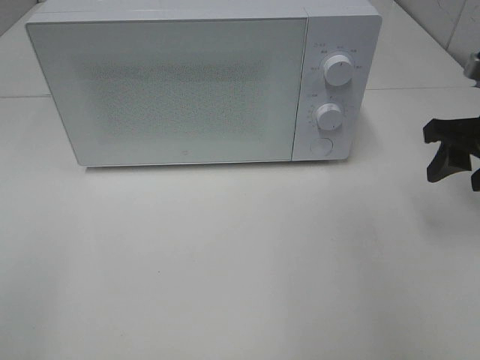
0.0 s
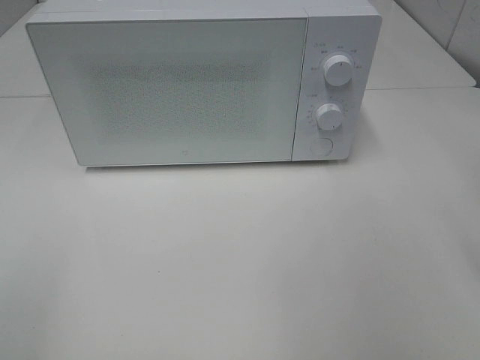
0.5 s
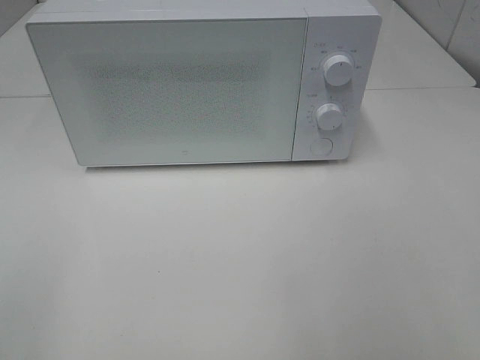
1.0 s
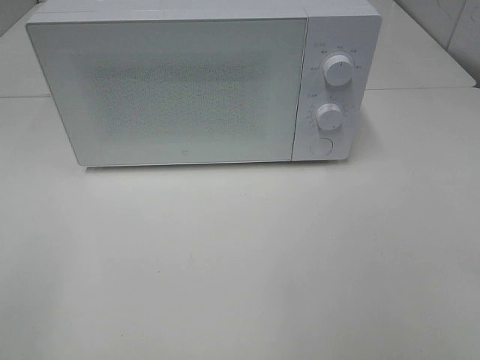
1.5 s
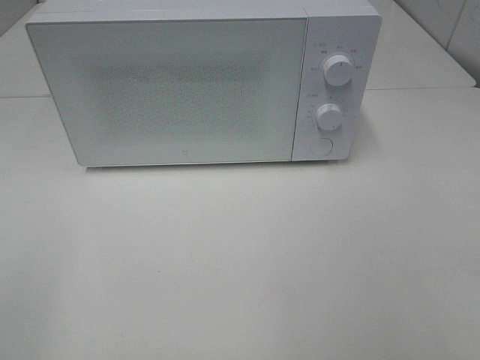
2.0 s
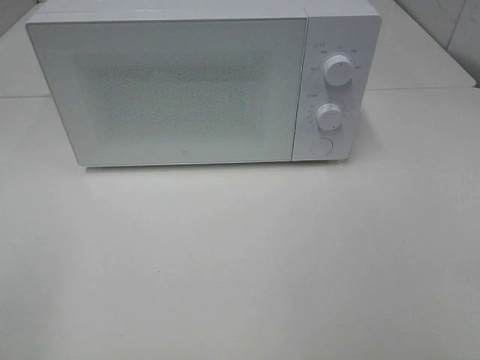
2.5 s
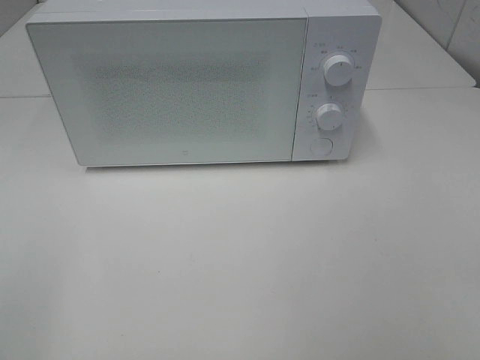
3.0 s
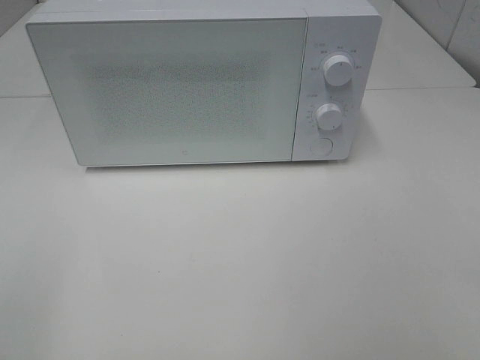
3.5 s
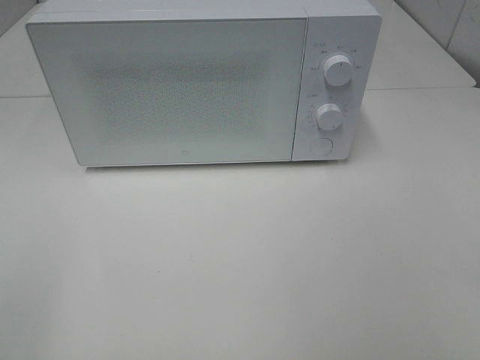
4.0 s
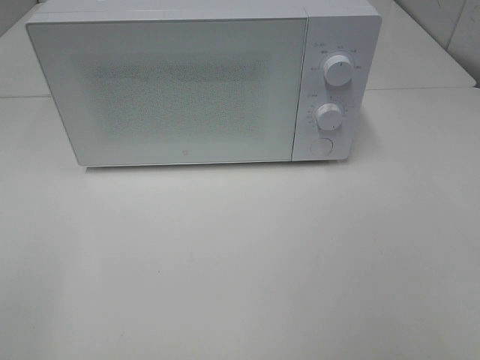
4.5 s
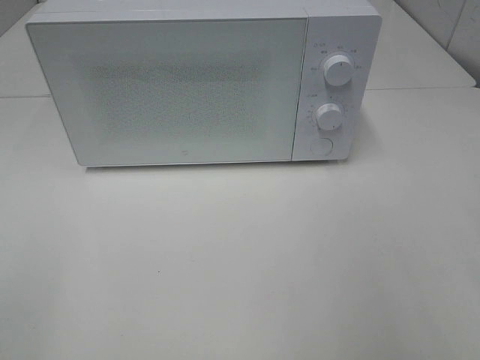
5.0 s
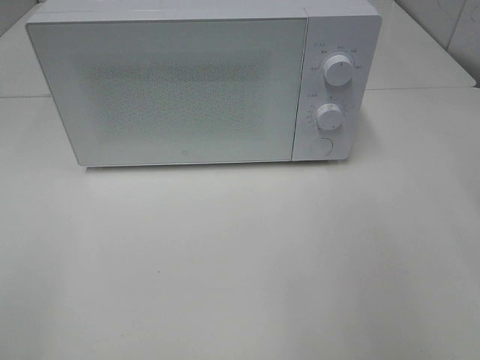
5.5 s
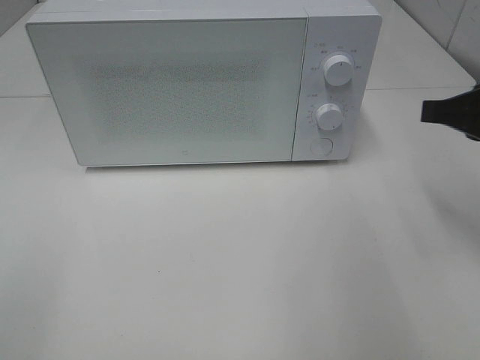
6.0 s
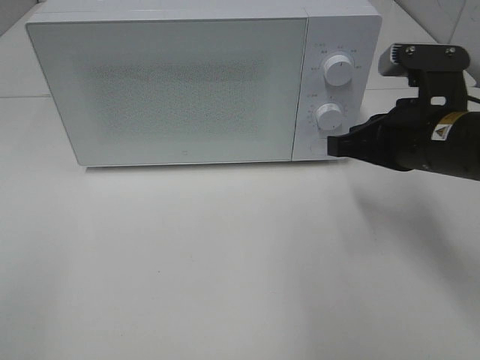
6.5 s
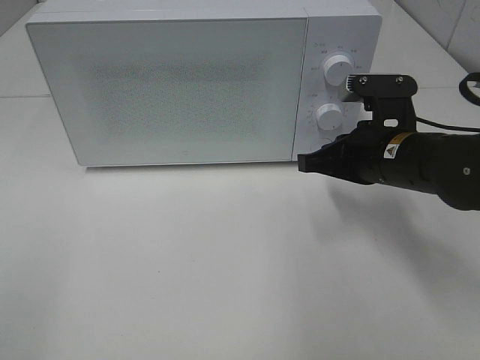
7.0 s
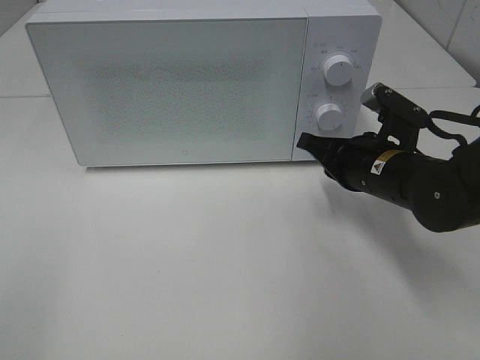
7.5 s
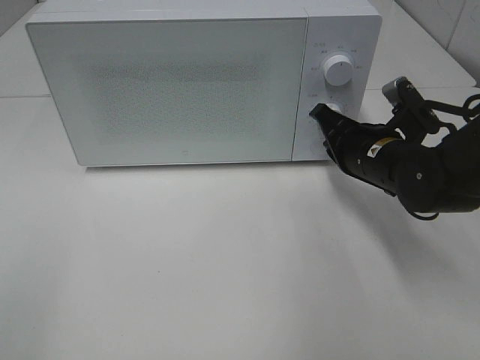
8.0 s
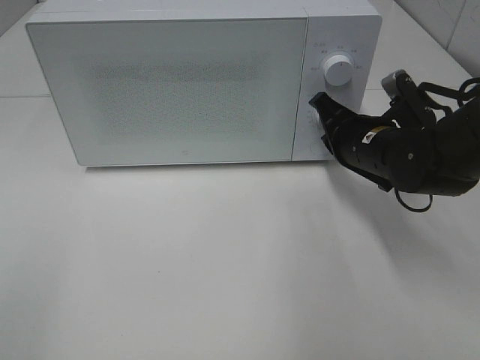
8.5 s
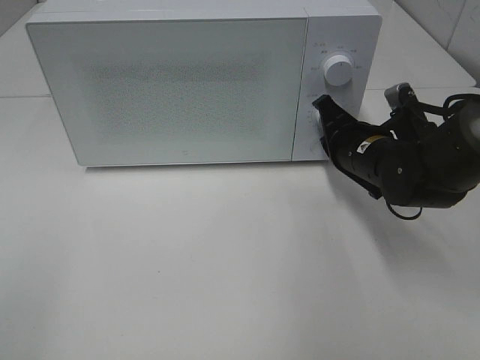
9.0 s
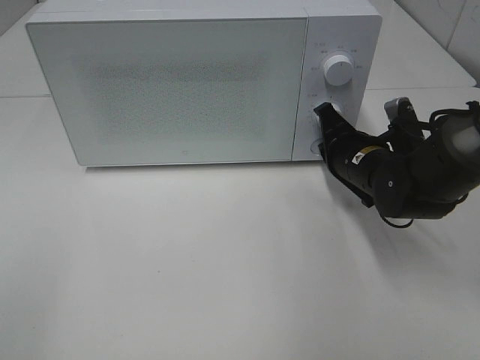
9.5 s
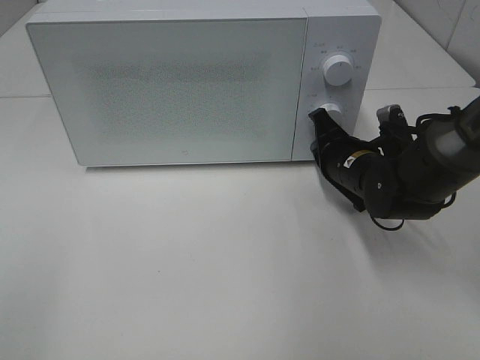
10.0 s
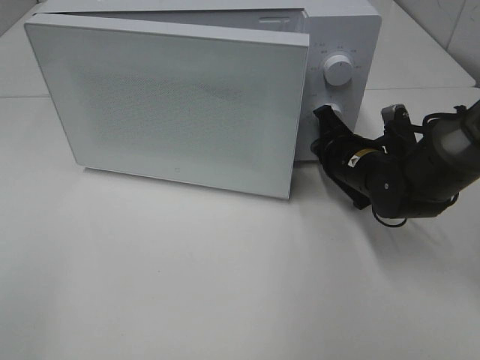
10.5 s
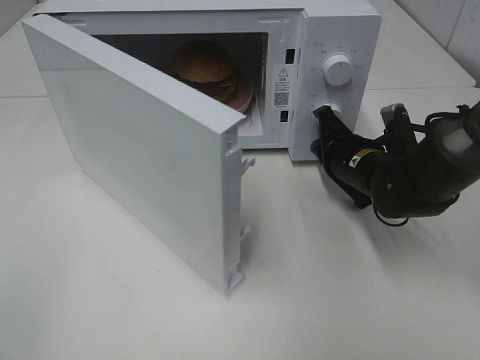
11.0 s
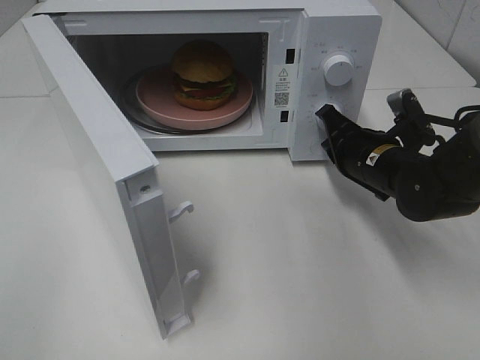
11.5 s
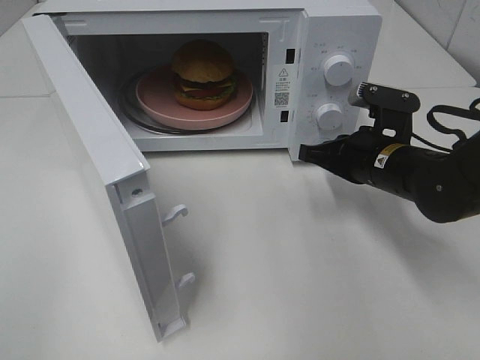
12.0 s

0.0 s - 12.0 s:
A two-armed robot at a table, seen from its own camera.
Task of the whole recording: Heat the burger.
Step, 0.0 s - 11.0 s: Right hand: press the switch.
0.0 s - 2.0 s: The right gripper shifts approximately 25 cm backward.
4.0 s - 6.0 s: The right gripper goes roughly 25 cm forward, and closes up.
6.0 s - 8.0 s: The right gripper moves downward, to the left and forward, approximately 15 cm.
8.0 s - 10.0 s: The right gripper shifts by some 5 cm.
10.0 s - 12.0 s: The right gripper moves roughly 5 cm.

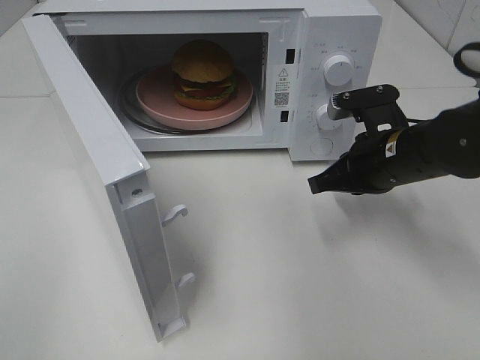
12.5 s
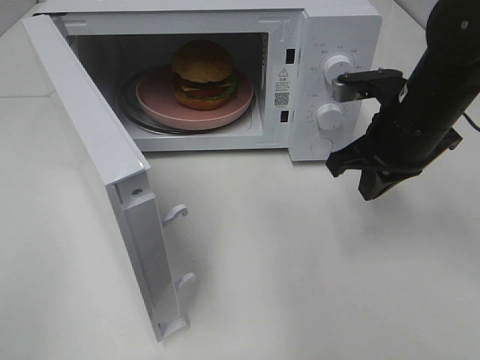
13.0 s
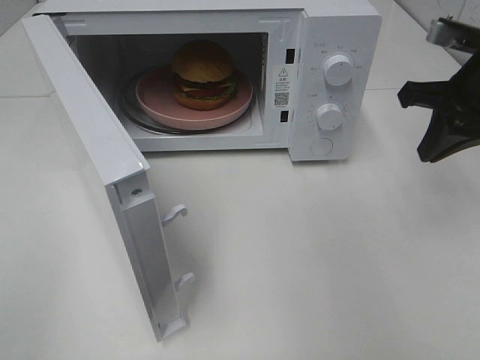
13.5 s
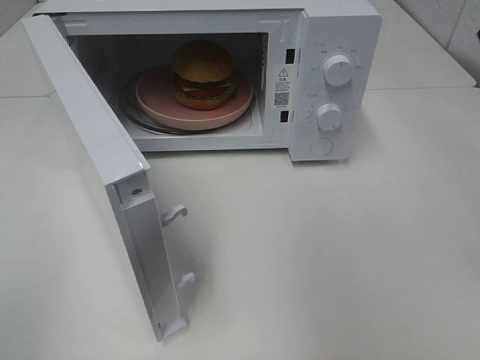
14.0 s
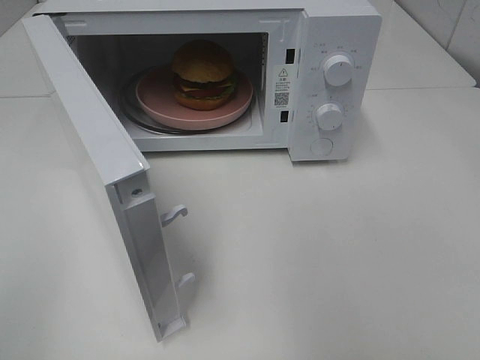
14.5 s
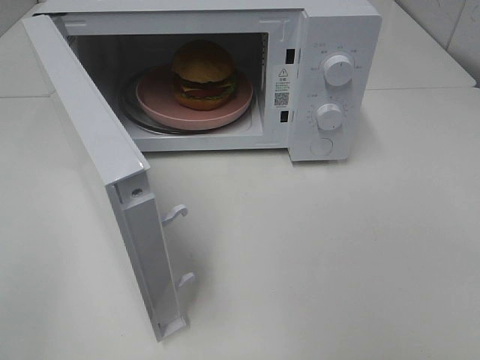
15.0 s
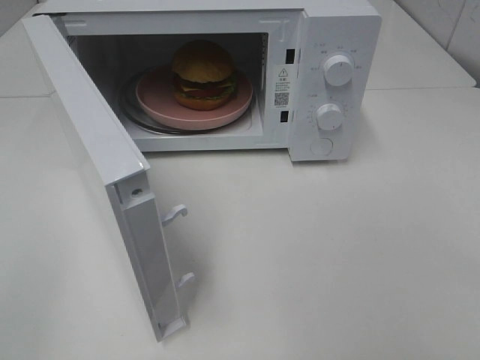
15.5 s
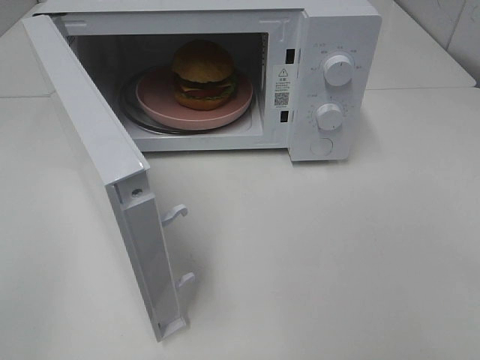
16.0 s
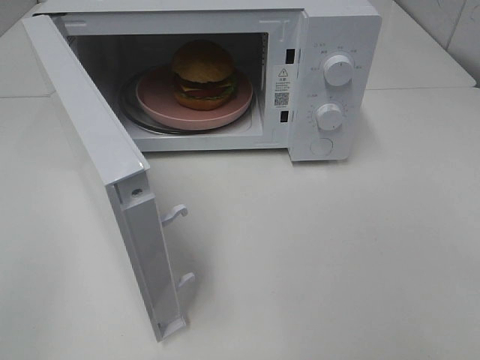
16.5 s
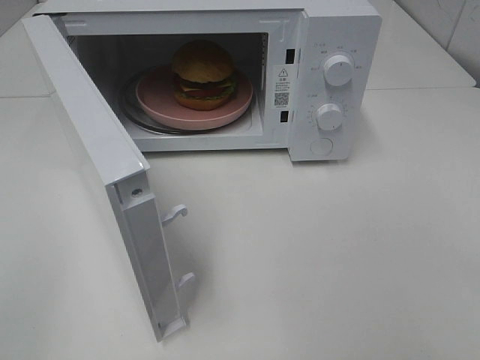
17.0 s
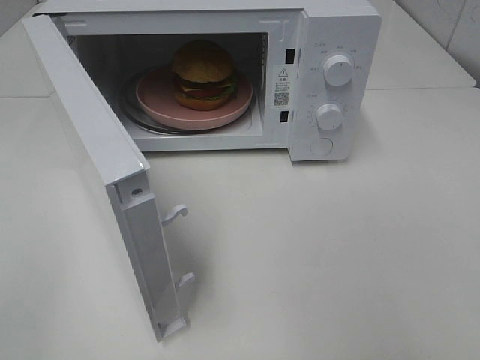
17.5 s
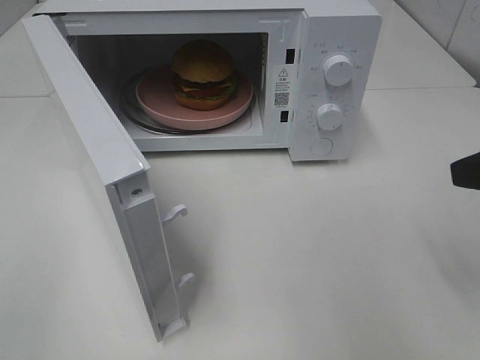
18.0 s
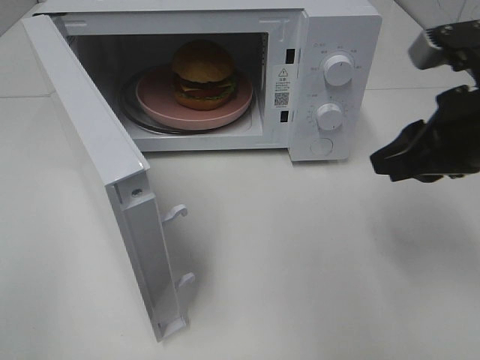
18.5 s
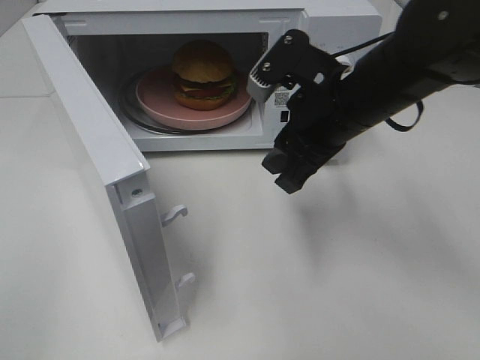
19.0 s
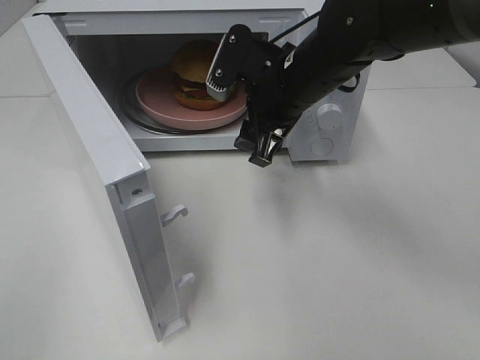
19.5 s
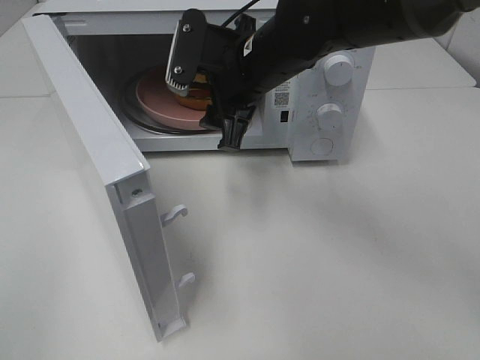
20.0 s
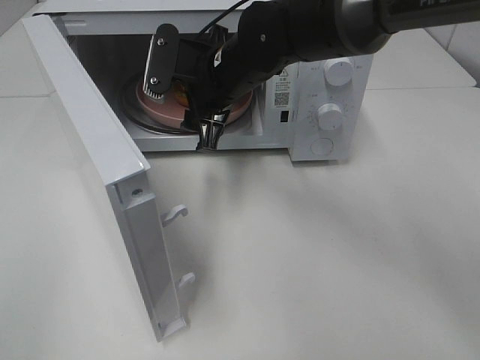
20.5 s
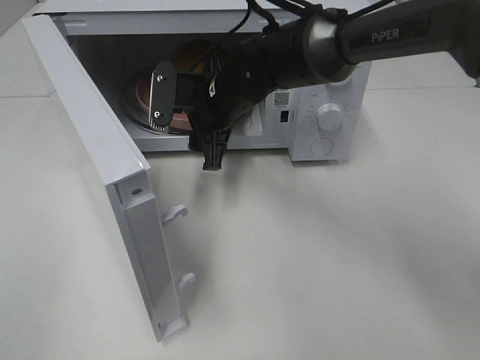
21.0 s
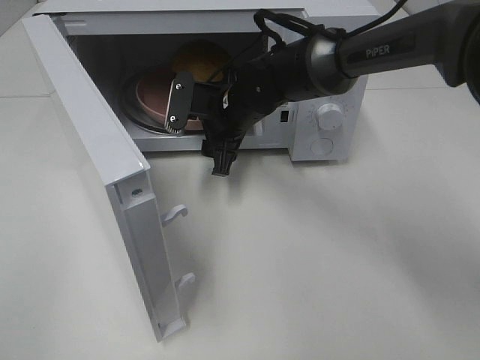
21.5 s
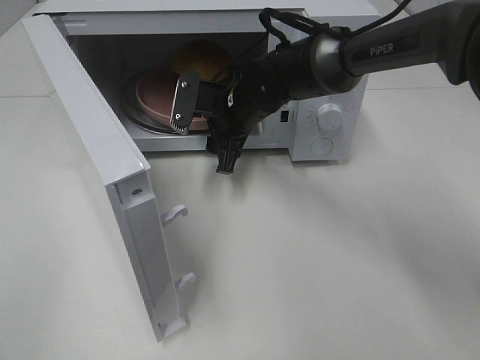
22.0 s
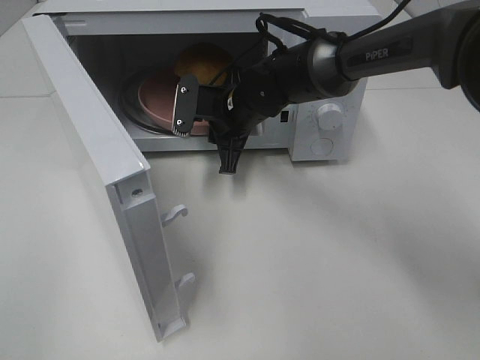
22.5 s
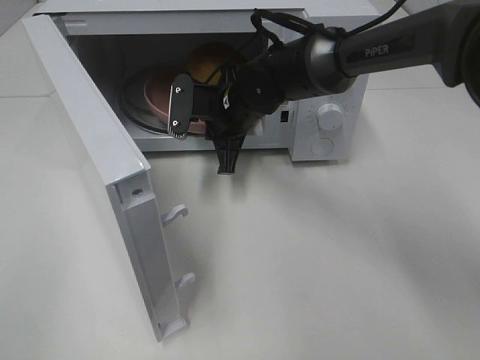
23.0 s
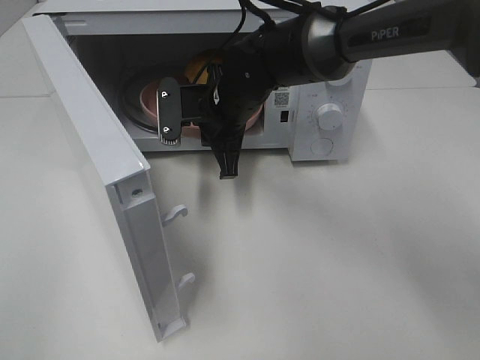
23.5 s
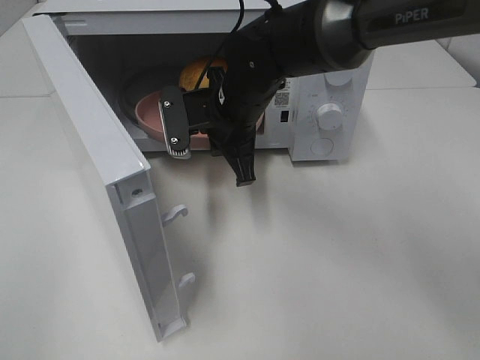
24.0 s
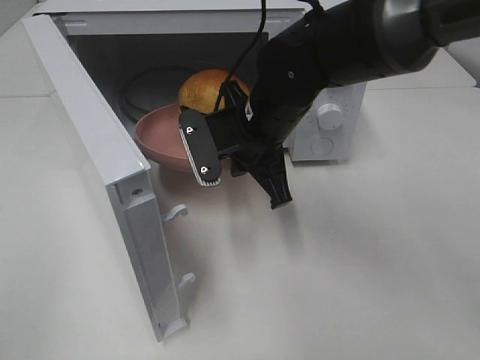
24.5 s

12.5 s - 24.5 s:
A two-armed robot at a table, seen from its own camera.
Task of the whole recording: Heat the burger.
Step, 12.5 s - 22.5 s: Right hand: grab the plate with the hamburger.
12.5 s - 14.5 s: The right gripper moves upward, backward and to the right, about 35 cm.
16.5 s - 18.5 s: The right gripper heads forward, covering roughly 25 cm.
18.5 s - 20.5 s: The right gripper goes some 25 cm to the left and forward, and opens its fingers.
20.5 s - 22.5 s: The right gripper shifts approximately 5 cm downward, and closes up.
22.5 s - 24.5 s: The right gripper is displaced backward and upward by approximately 10 cm.

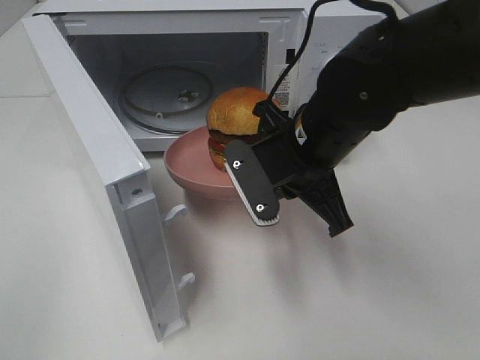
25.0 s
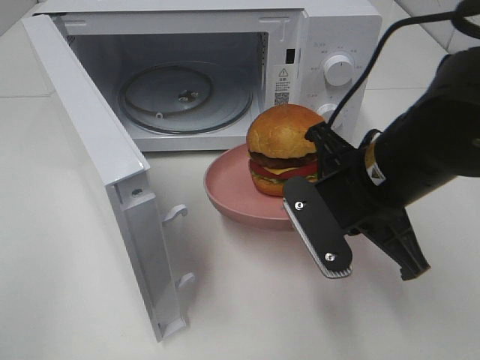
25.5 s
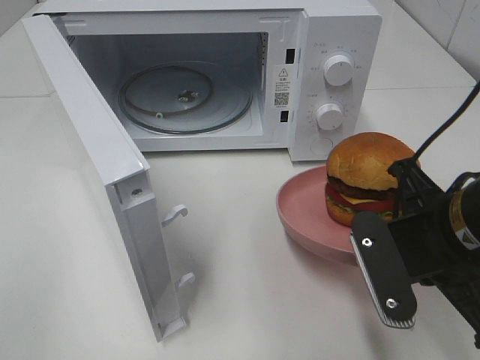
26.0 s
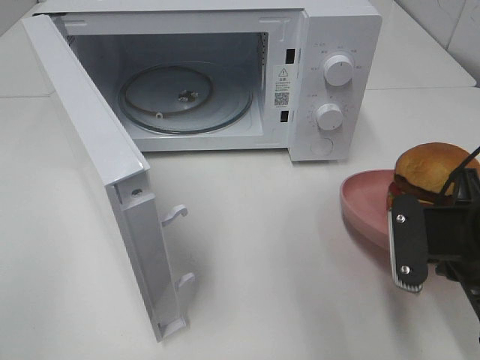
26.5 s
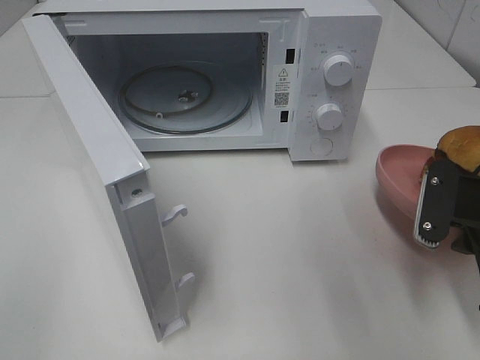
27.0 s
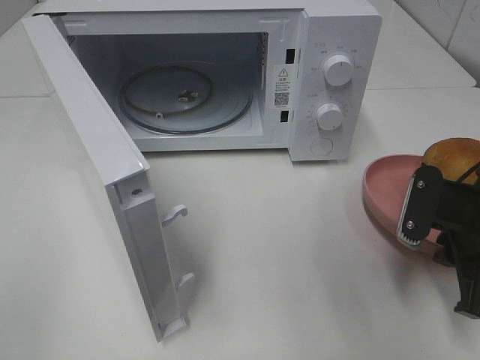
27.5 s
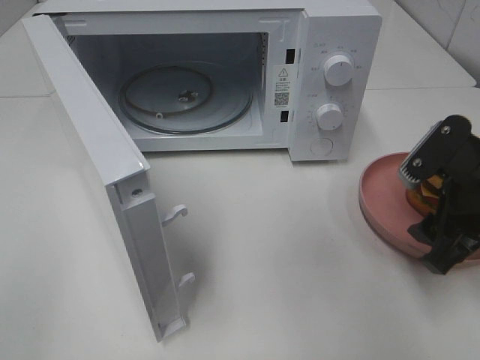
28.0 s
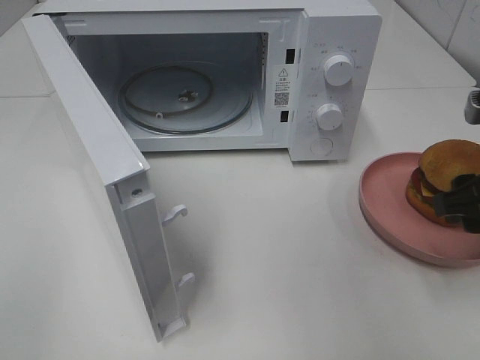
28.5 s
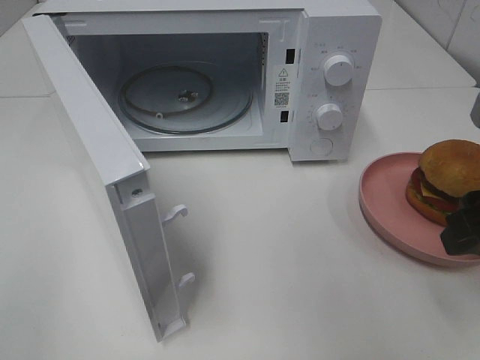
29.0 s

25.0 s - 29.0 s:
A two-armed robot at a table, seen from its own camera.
Task of the whole recording: Heat the burger.
Step, 25.0 s - 27.5 s: Right hand: place the plate on the table.
25.0 s - 27.0 s: The right gripper shifts about 20 cm to the right.
27.0 s - 29.0 s: The right gripper heads upward, covering some 10 cm, and opens up.
